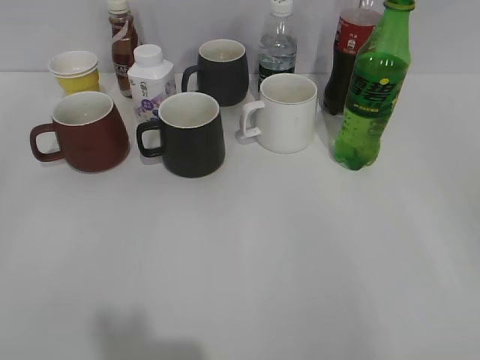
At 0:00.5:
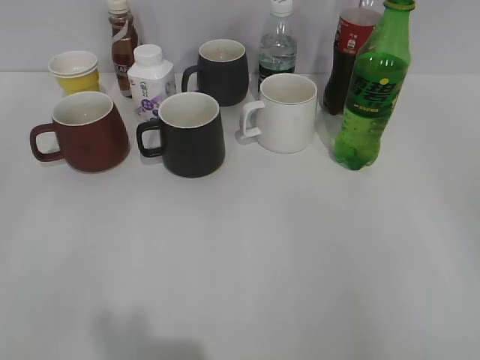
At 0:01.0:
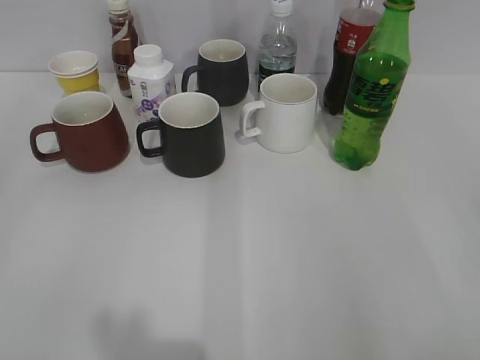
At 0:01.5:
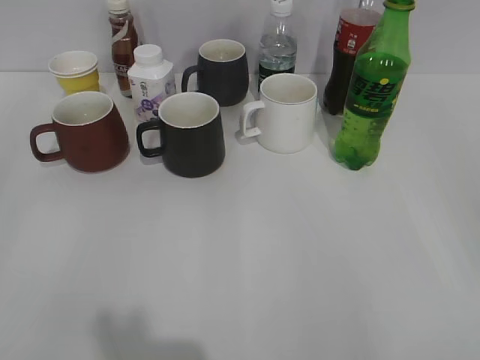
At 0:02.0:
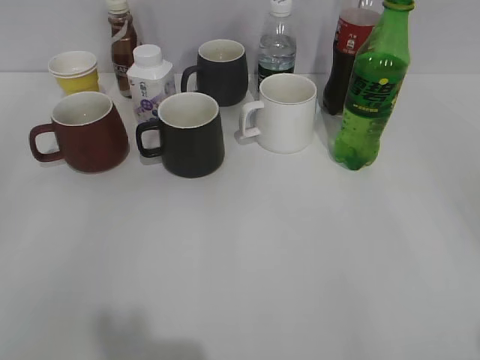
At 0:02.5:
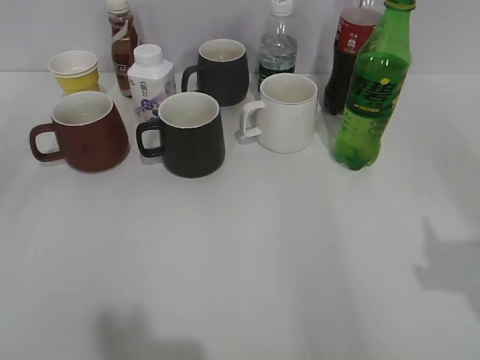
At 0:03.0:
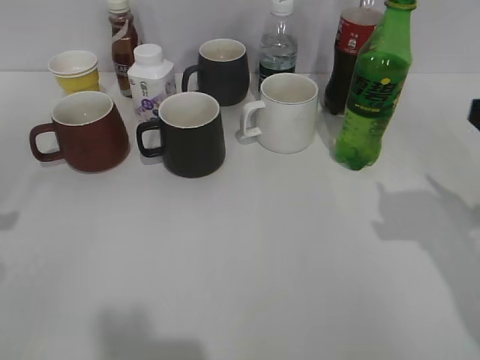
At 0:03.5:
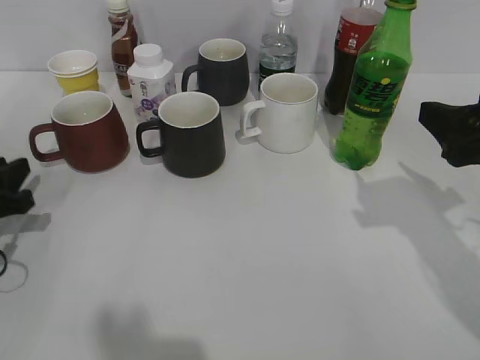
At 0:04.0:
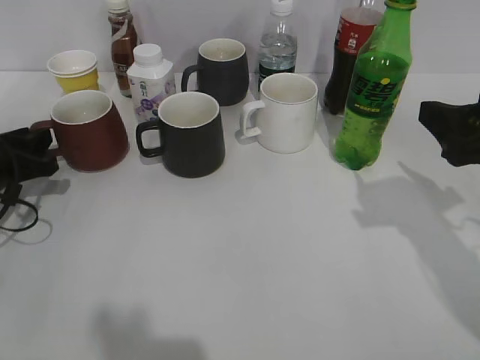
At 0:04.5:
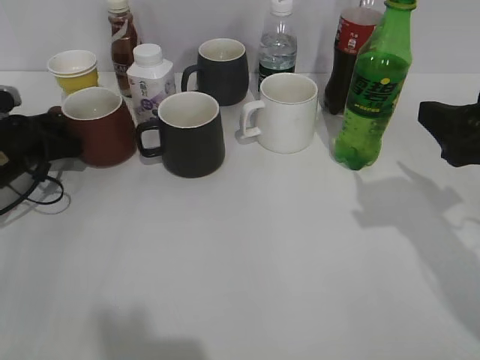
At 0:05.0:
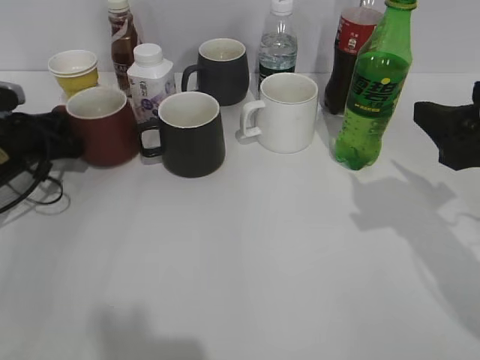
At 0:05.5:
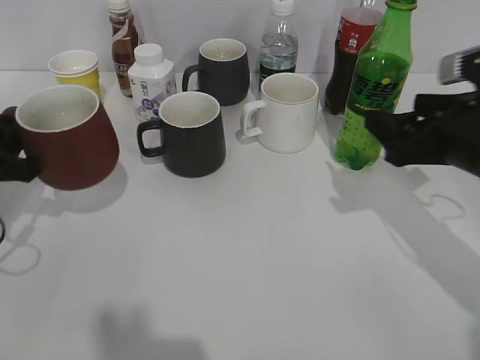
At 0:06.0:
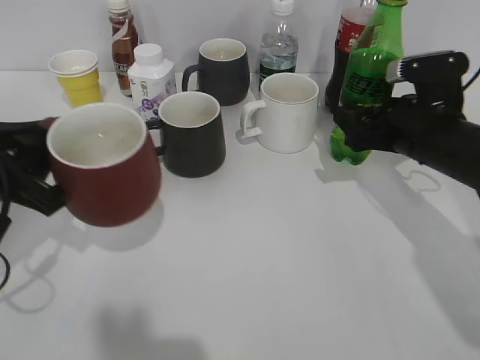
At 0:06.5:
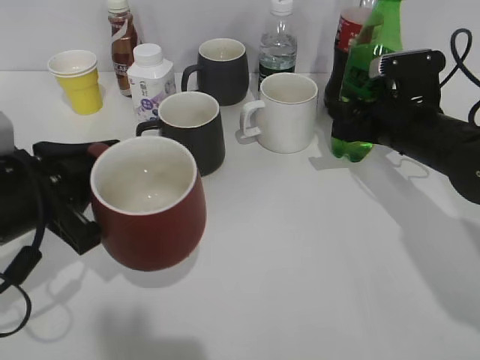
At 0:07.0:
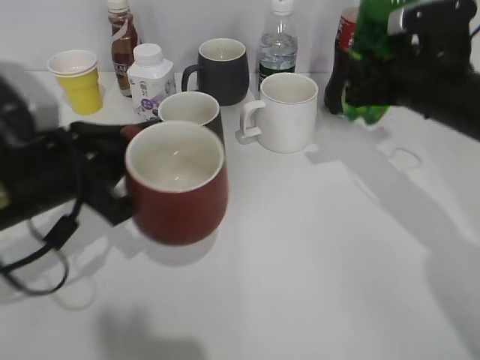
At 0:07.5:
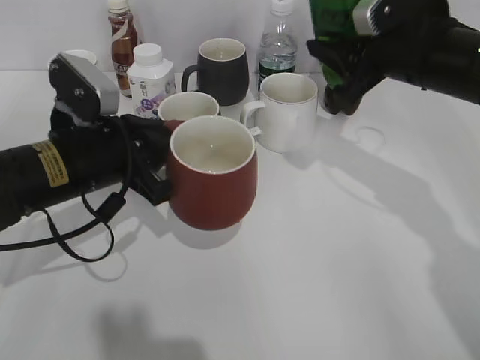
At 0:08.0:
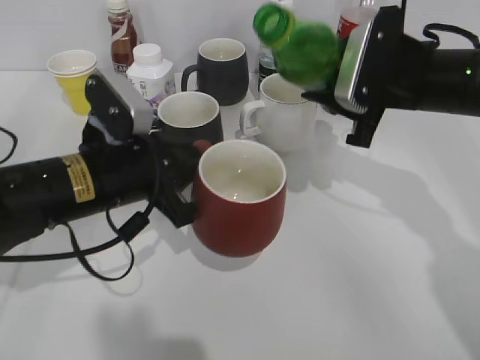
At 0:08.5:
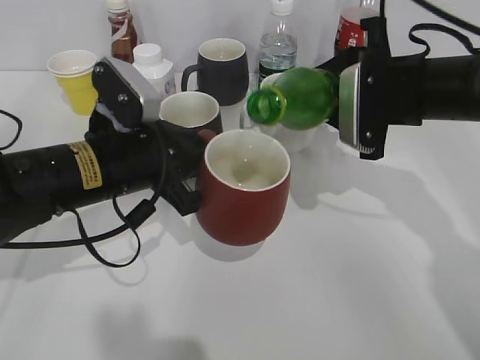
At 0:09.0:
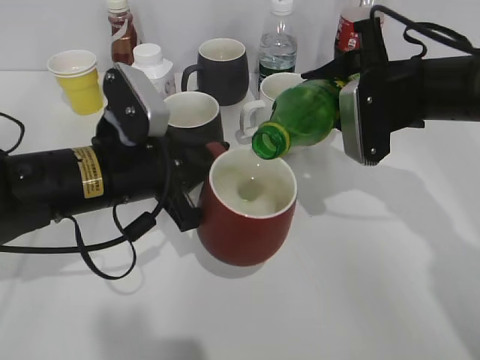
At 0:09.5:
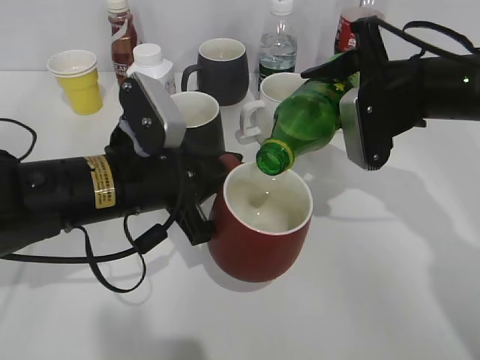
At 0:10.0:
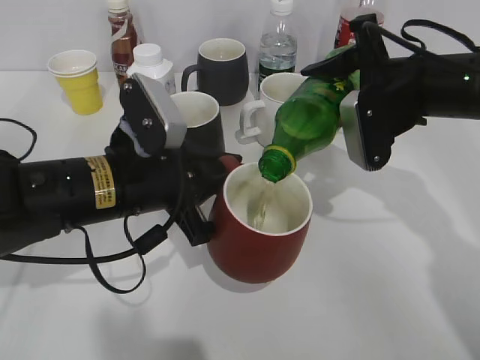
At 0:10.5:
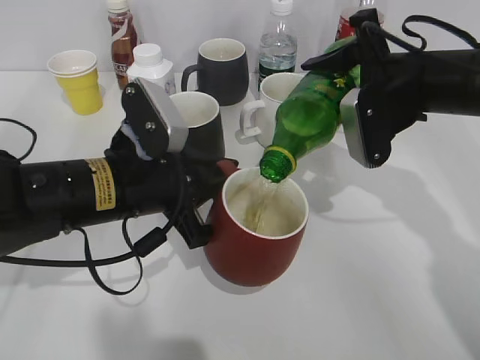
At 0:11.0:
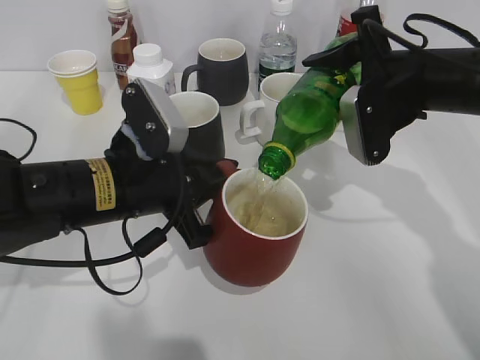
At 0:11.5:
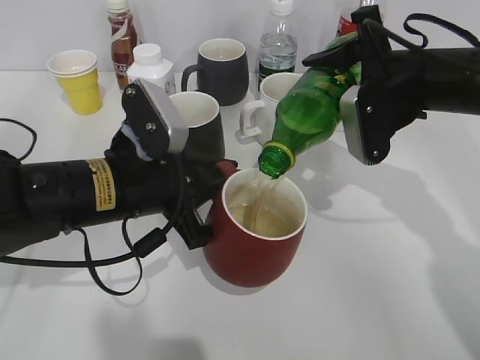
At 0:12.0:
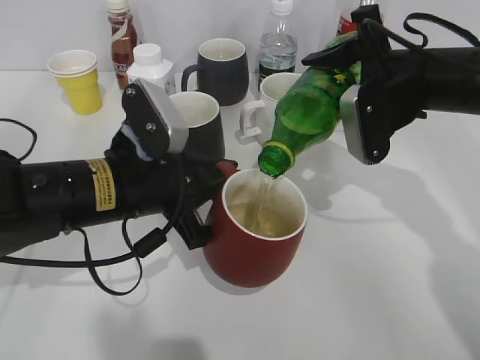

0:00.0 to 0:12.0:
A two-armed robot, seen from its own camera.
Step, 0:02.0 to 0:04.5: Grasp the red cup with left gripper.
Step, 0:05.0 to 0:06.5: Grasp the bottle with sprite with right gripper.
0:02.0 to 0:04.0: The right gripper is displaced forward by approximately 20 cm, while the left gripper goes about 35 cm forward and downward.
0:04.0 to 0:06.0: The right gripper heads forward and downward, covering about 15 cm, while the left gripper goes approximately 15 cm backward, upward and to the right, and closes.
0:06.0 to 0:08.0: The left gripper goes some 10 cm to the right. Meanwhile the right gripper moves upward, about 5 cm, and closes up.
0:10.0 to 0:12.0: Both grippers stay about where they are.

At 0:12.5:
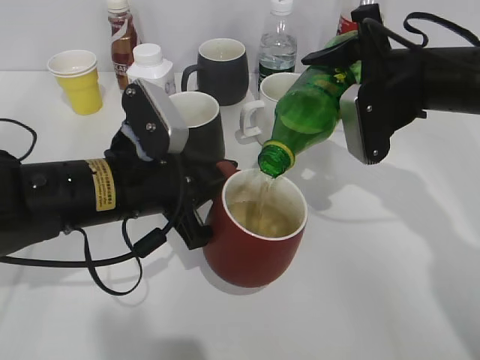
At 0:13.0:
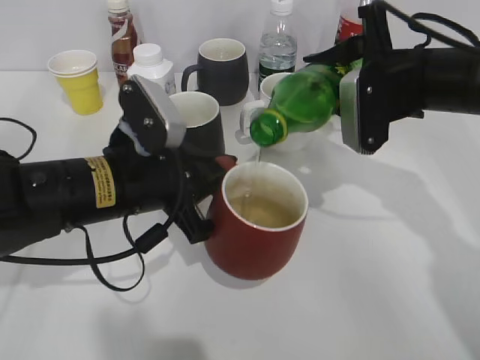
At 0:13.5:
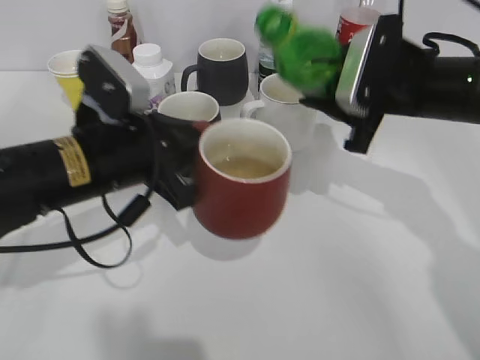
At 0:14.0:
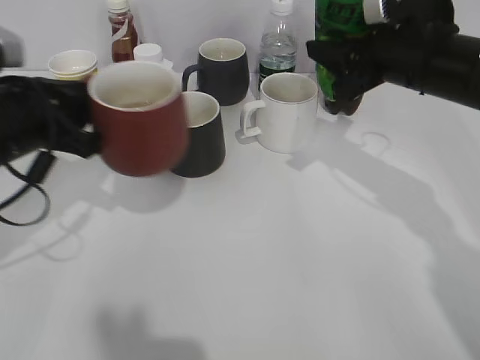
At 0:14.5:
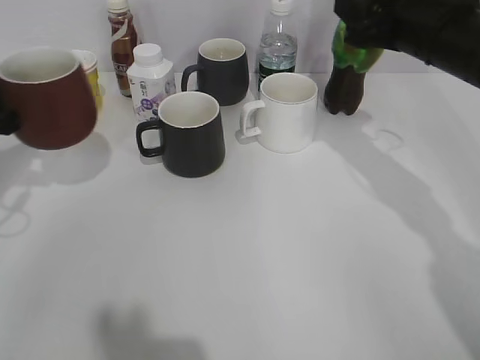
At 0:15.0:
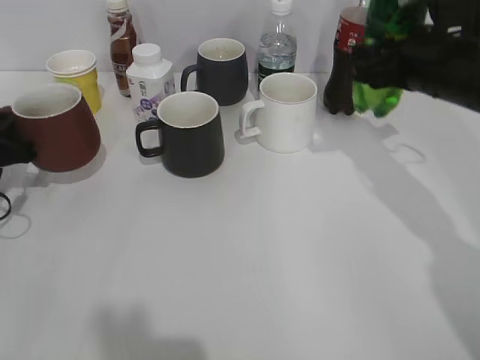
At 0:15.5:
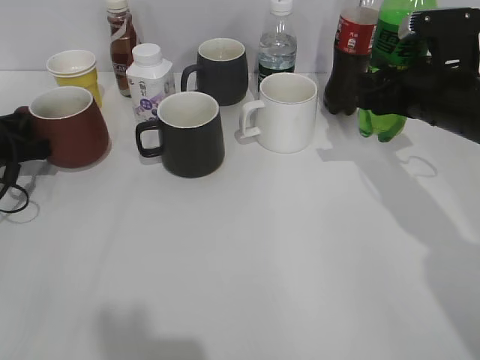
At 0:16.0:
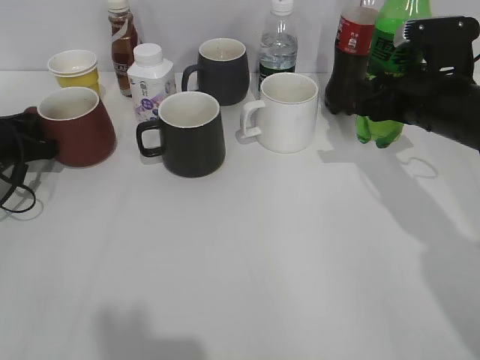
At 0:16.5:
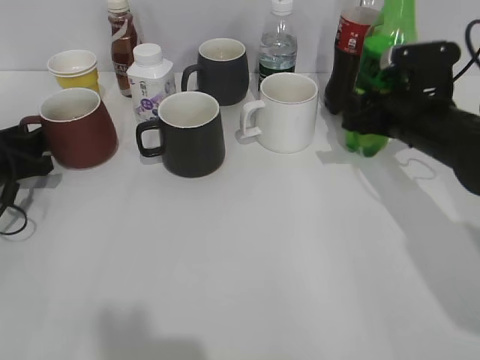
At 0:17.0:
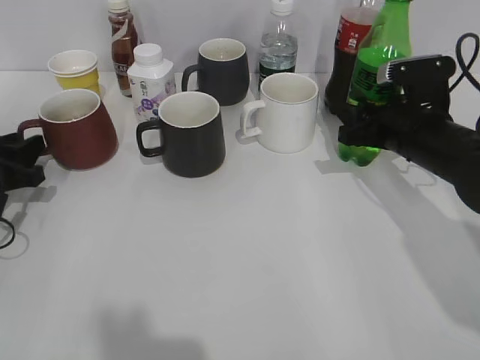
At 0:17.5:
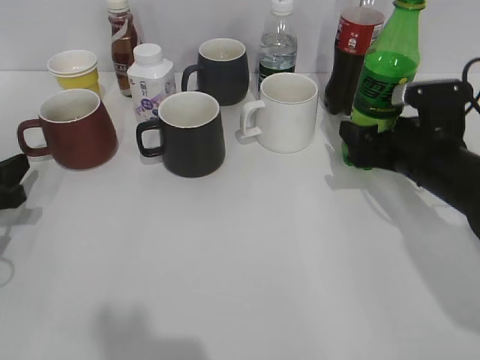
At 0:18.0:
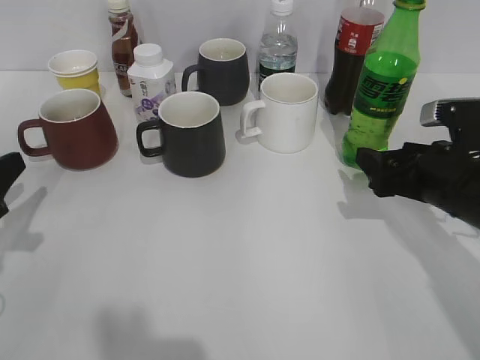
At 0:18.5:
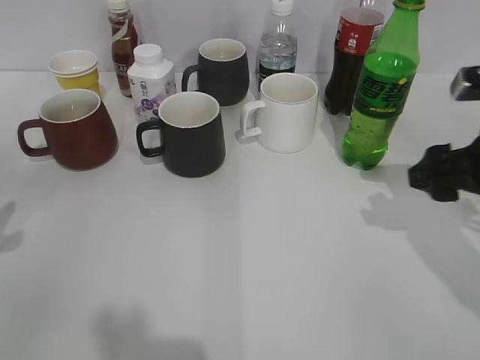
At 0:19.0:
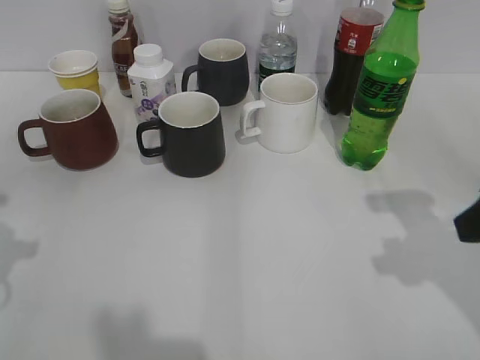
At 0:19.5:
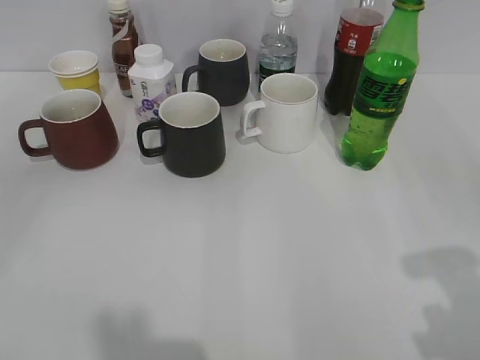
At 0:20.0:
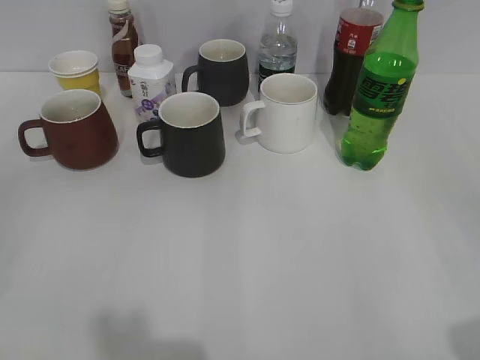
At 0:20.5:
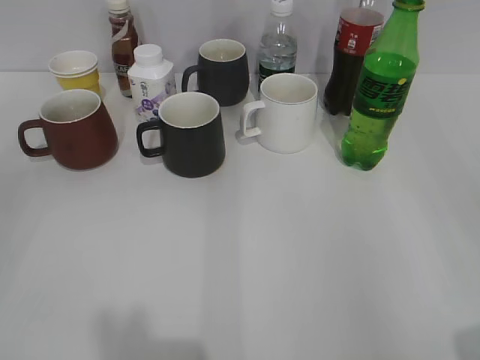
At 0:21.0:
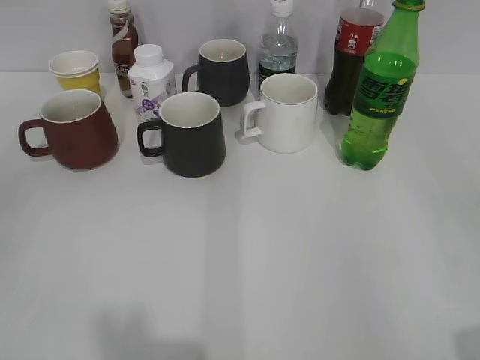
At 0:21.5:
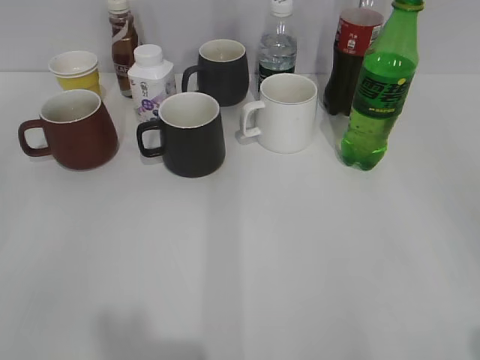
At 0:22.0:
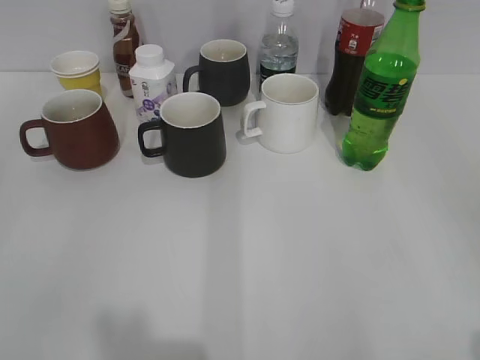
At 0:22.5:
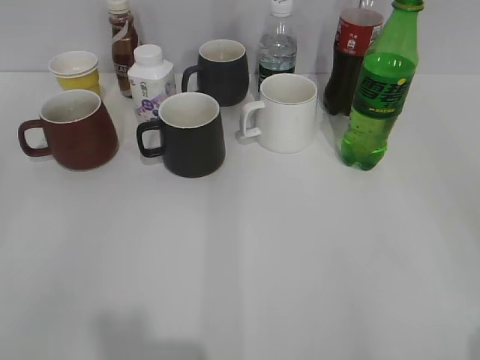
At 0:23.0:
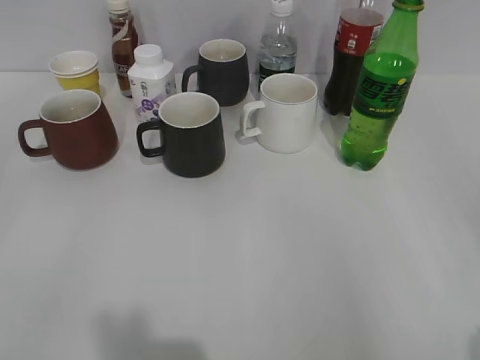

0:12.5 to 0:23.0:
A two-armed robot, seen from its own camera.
Step, 0:13.5 to 0:14.0: Place the red cup on the table with left gripper.
Step, 0:14.5 to 0:17.0: Place the sprite bottle on the table with right gripper.
0:12.5 to 0:14.5: The left gripper shifts roughly 20 cm to the left.
0:14.5 to 0:16.5: Both grippers travel together downward, roughly 10 cm. The left gripper opens up.
0:16.5 to 0:19.0: Both grippers travel together backward and upward, some 20 cm. The right gripper opens.
0:19.0 to 0:21.0: The right gripper heads backward, covering about 15 cm.

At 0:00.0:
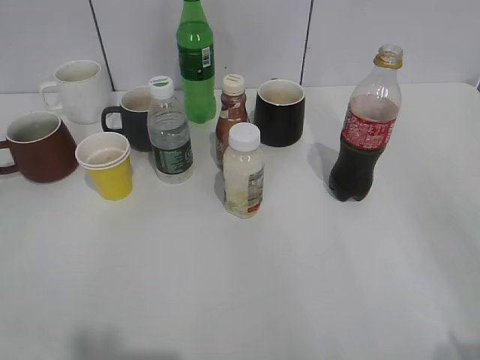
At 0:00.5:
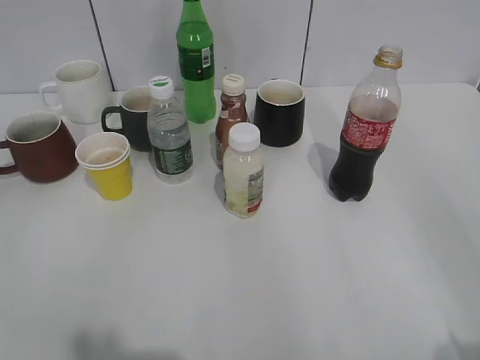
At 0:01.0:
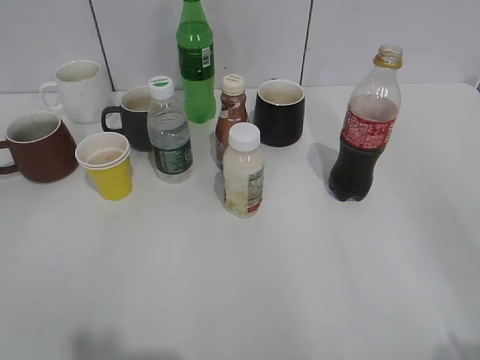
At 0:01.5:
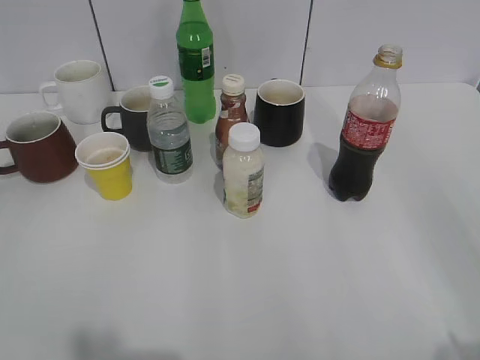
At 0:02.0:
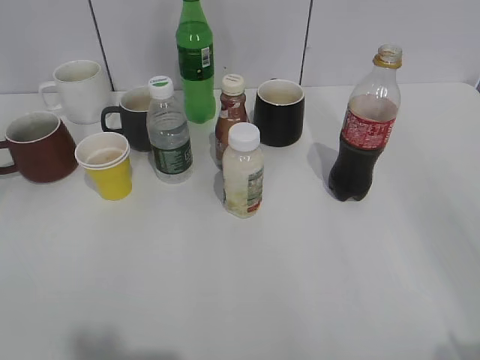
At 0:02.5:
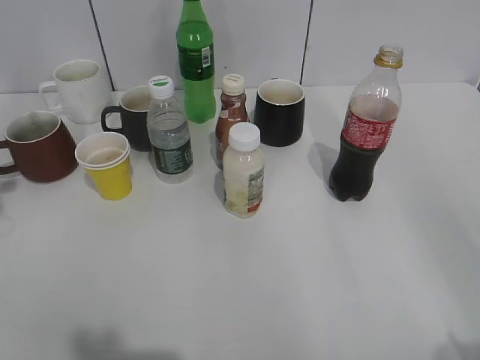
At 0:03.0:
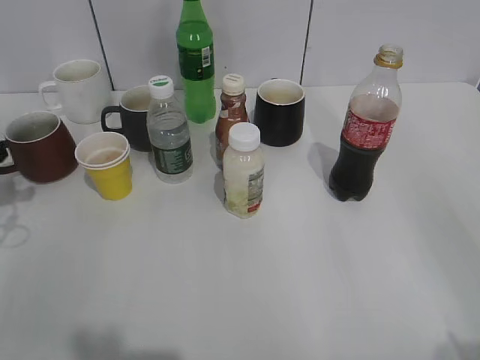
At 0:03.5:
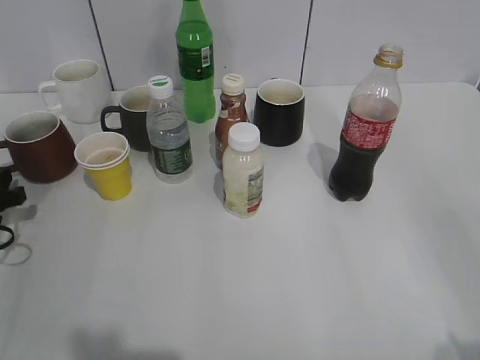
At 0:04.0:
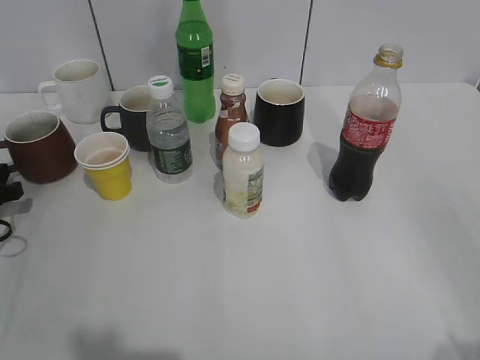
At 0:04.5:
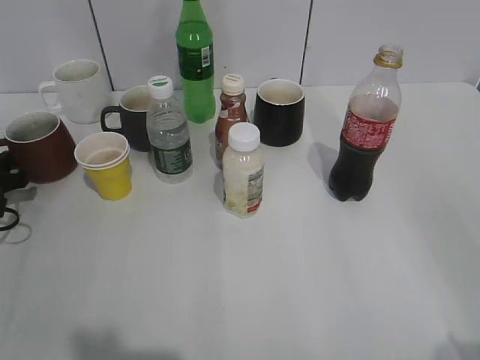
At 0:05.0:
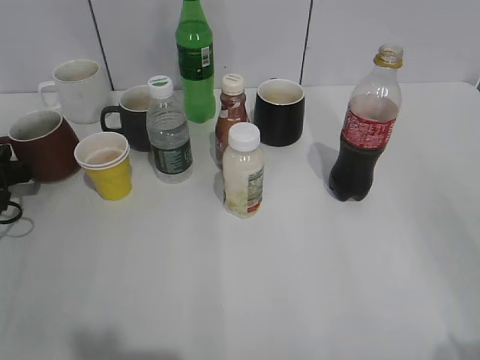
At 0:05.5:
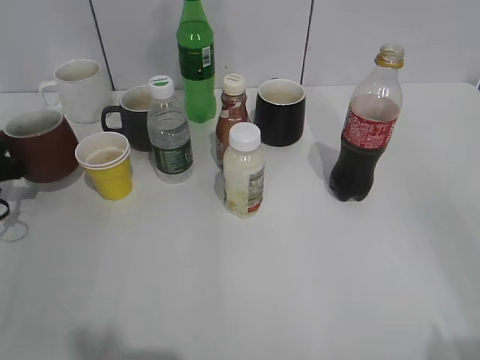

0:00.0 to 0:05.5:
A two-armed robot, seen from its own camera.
Step, 0:01.5 to 0:04.5: Grasp the red cup with left gripper.
0:02.0 to 0:03.5: The left gripper heads downward and forward, covering some 35 cm.
0:03.5 to 0:05.5: The left gripper closes its fingers.
